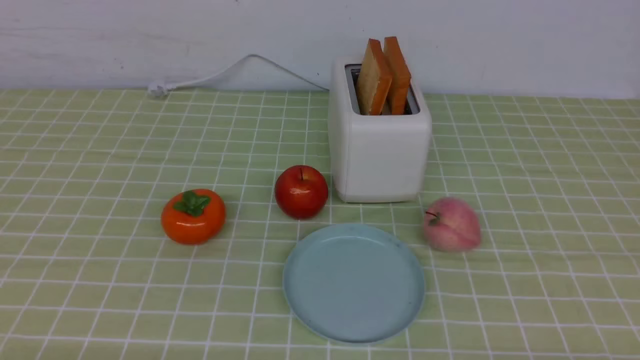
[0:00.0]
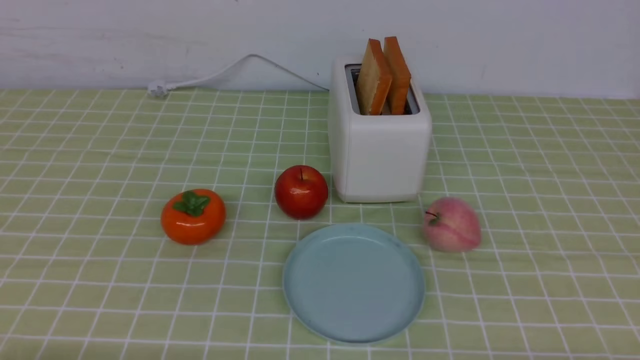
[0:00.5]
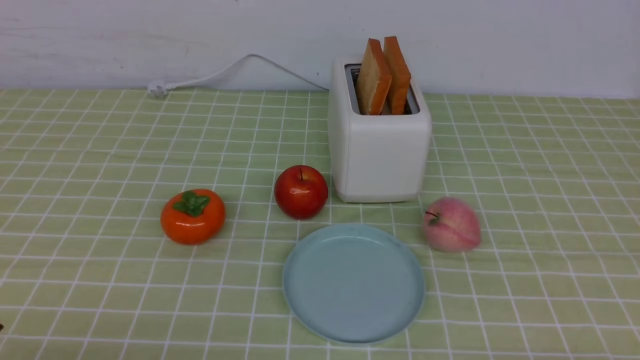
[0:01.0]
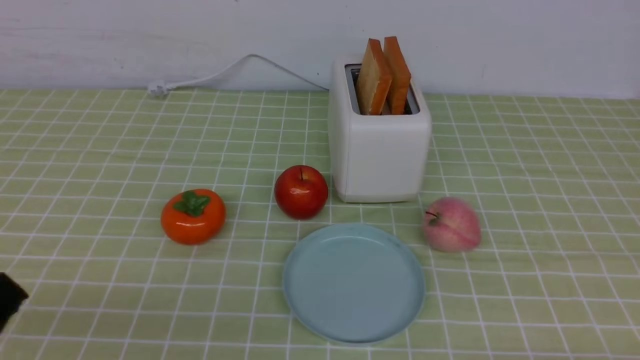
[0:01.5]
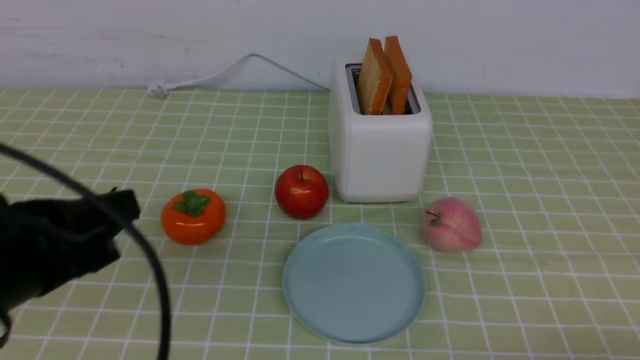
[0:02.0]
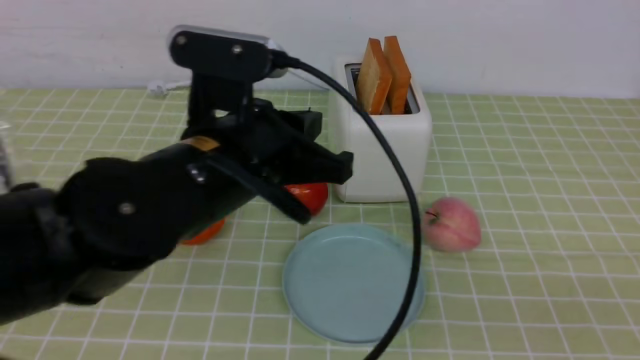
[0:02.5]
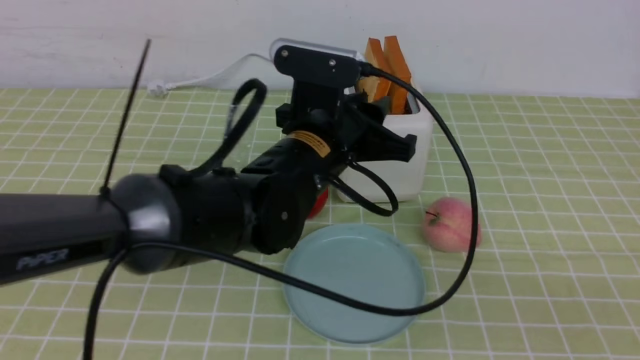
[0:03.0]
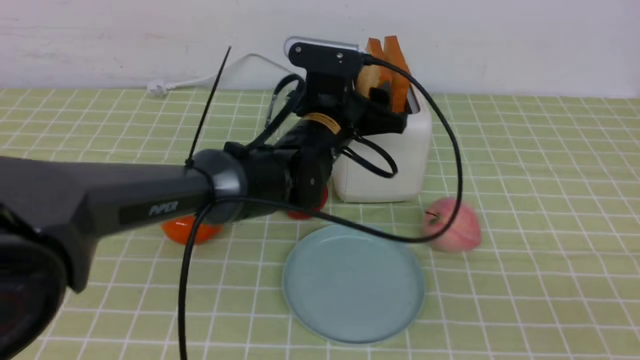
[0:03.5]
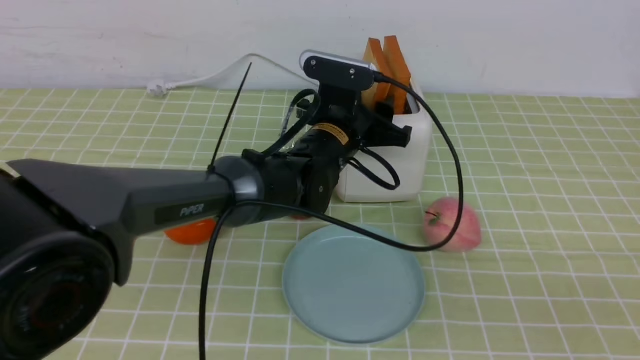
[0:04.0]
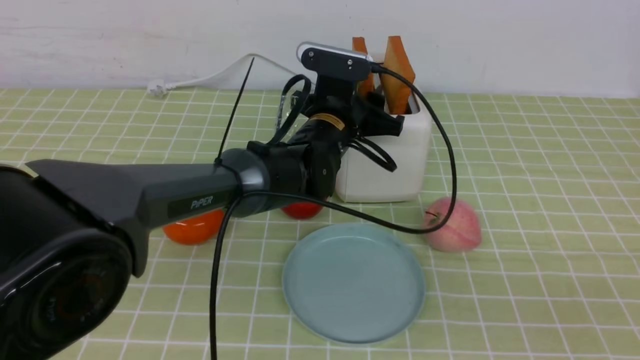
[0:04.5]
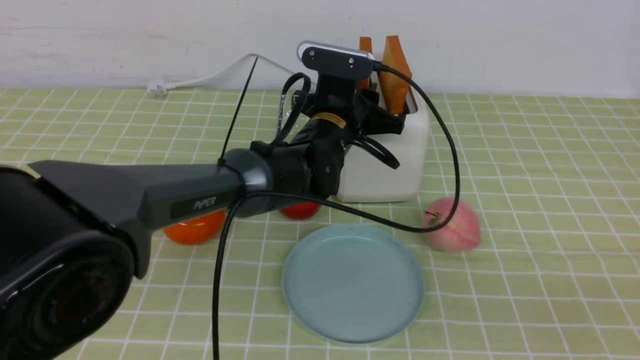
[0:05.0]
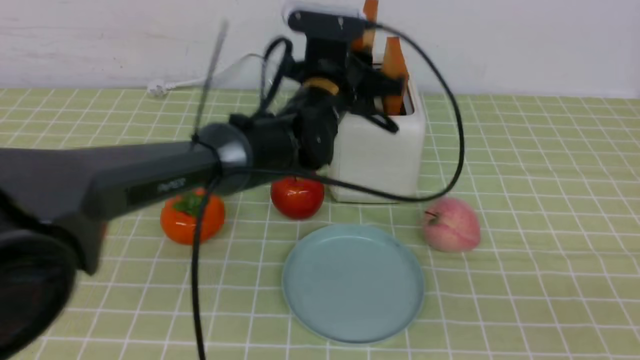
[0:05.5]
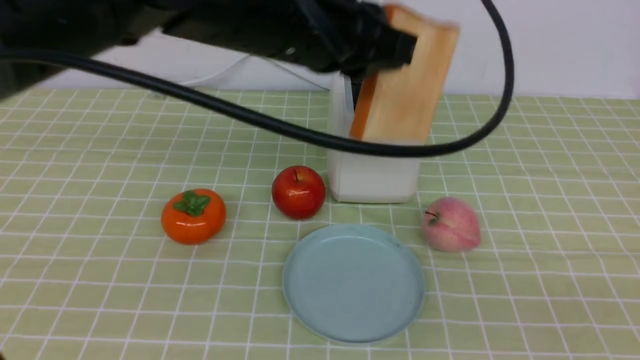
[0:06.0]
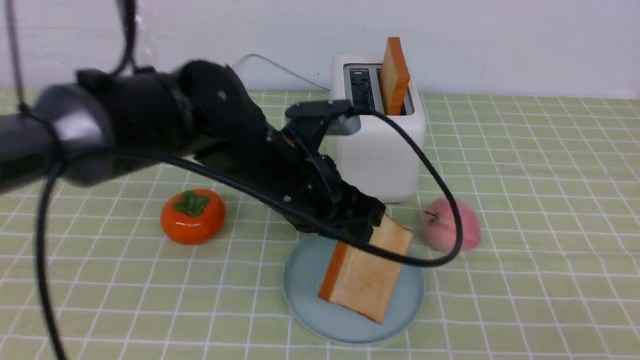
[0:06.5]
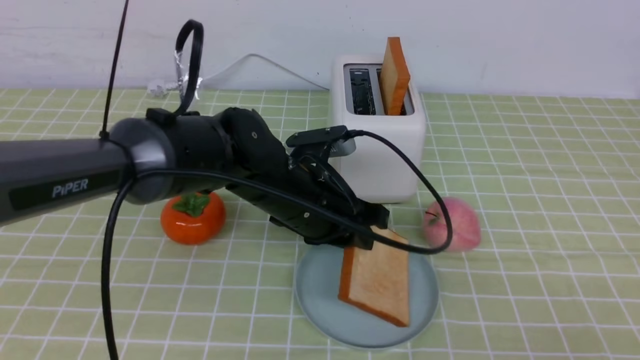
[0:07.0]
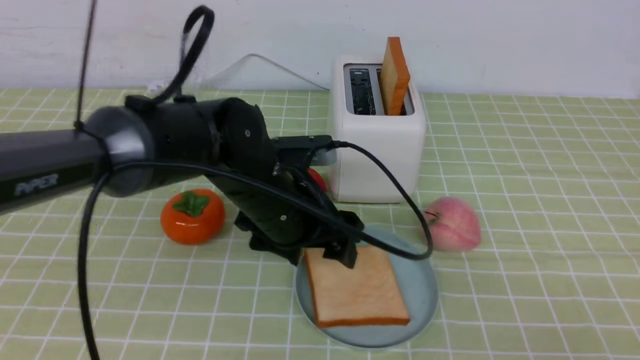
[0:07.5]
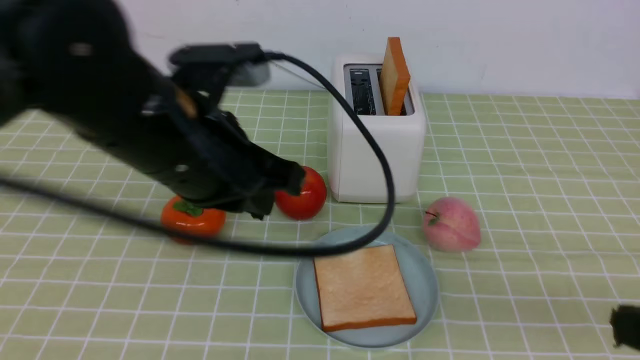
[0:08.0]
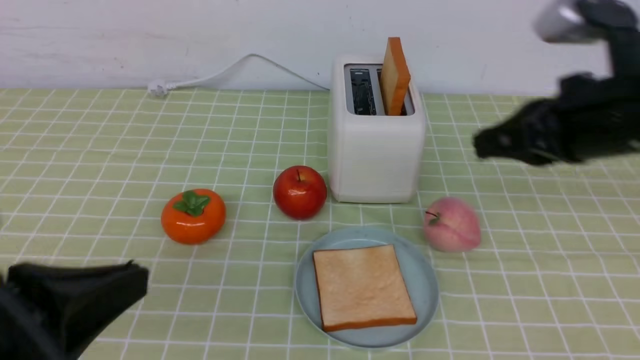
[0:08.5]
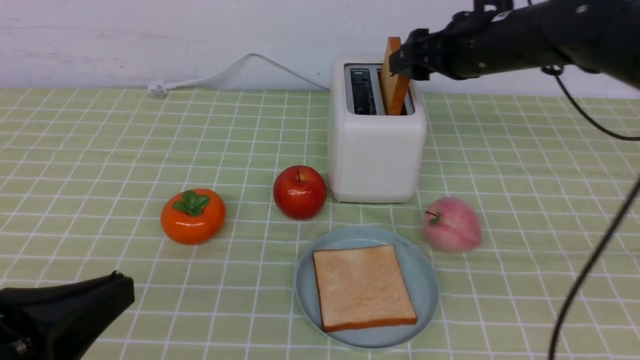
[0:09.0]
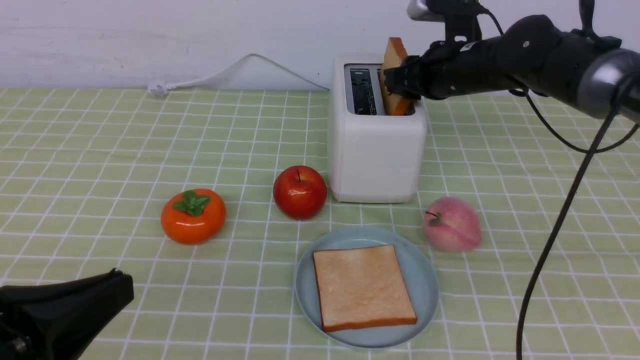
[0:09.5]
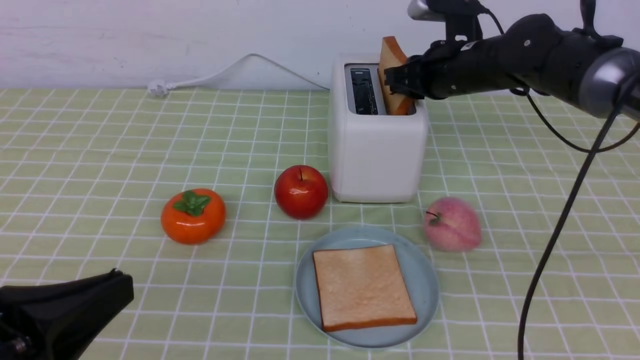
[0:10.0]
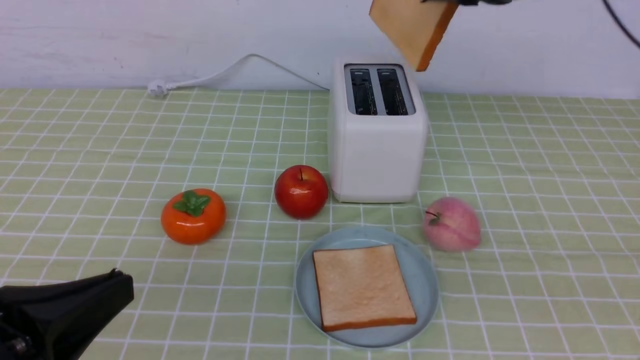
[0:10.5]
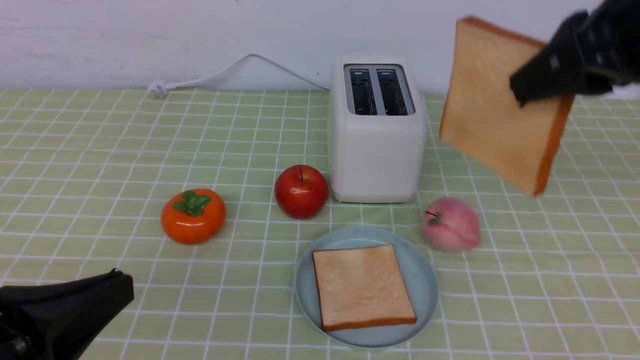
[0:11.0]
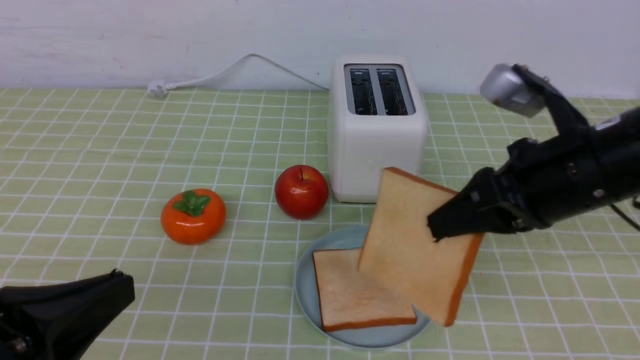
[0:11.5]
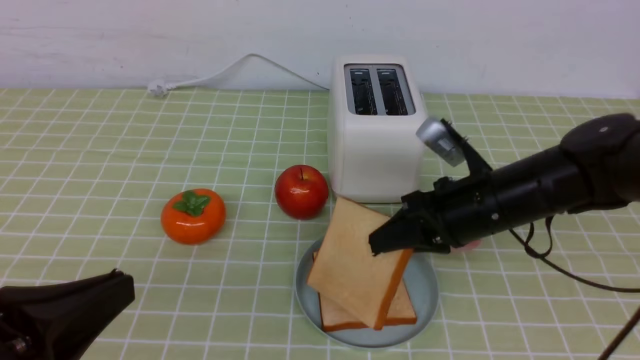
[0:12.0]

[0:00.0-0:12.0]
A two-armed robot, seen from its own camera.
Task of the whole recording: take toasted bread from bread machine on green coffee tablecloth place on plate.
Step, 0:00.0 to 0:05.5: use the left arm to take out a slice of bread.
Step, 0:06.0 to 0:07.5: use the left arm to put a slice of bread into the empty plate.
Step, 0:08.0 to 0:10.0: use the right arm to take out a slice of bread.
0:02.0 to 0:04.0: The right gripper travels upward by some 15 cm, and closes up, while the left gripper moves forward and to the right, about 35 cm, and opens its fingers.
0:04.0 to 0:06.0: The left gripper moves upward and backward, about 20 cm, and closes.
0:06.0 to 0:08.0: The left gripper moves backward, to the left and downward, approximately 10 cm, and opens and closes again.
0:08.0 to 0:10.0: The right gripper moves forward, some 40 cm, and opens and closes again, while the left gripper shifts about 20 cm backward and to the left, and closes its fingers.
0:10.0 to 0:12.0: The right gripper moves backward, about 15 cm.

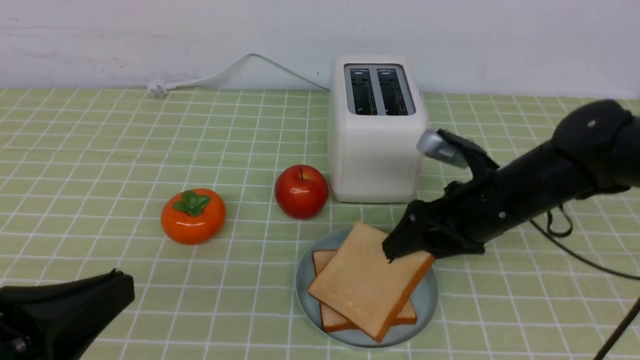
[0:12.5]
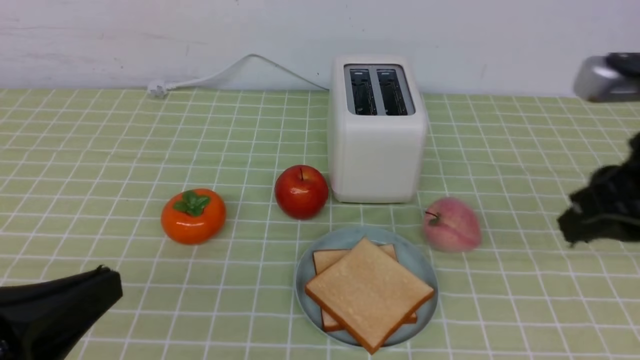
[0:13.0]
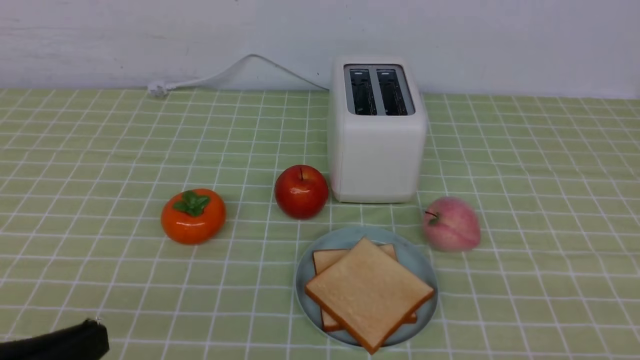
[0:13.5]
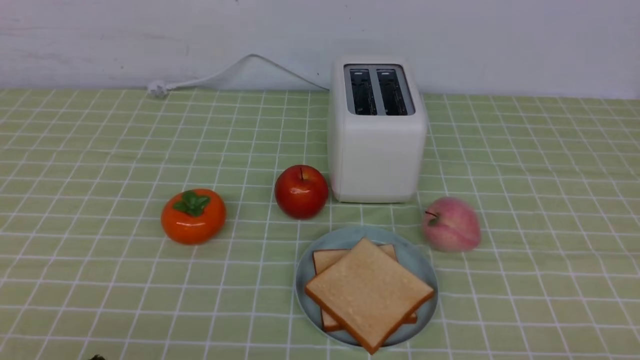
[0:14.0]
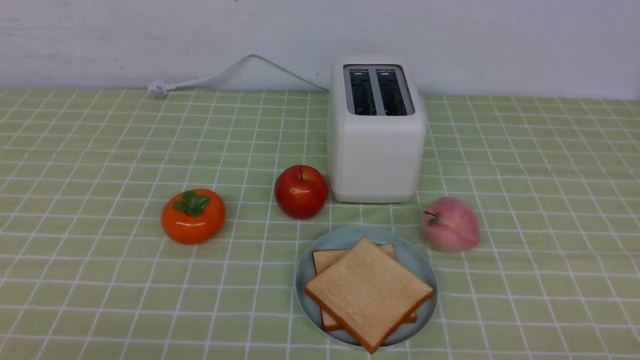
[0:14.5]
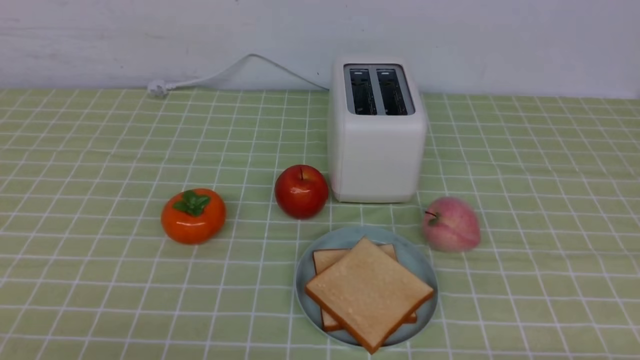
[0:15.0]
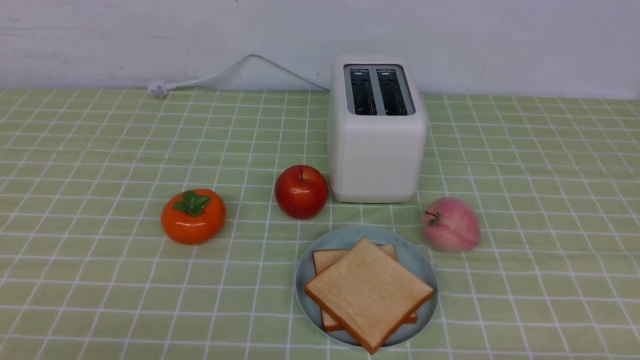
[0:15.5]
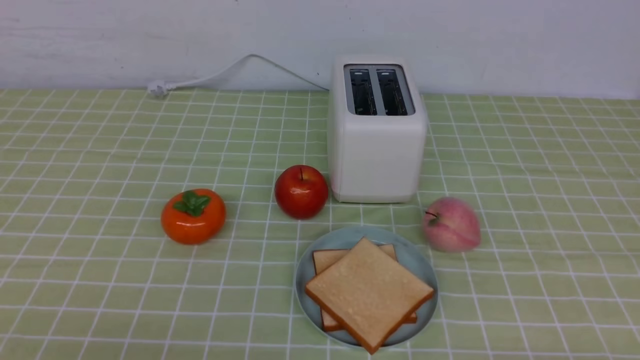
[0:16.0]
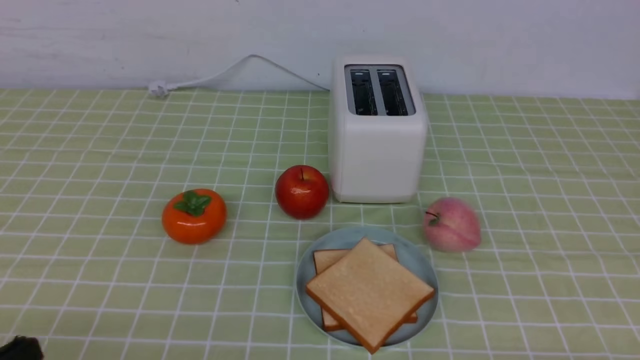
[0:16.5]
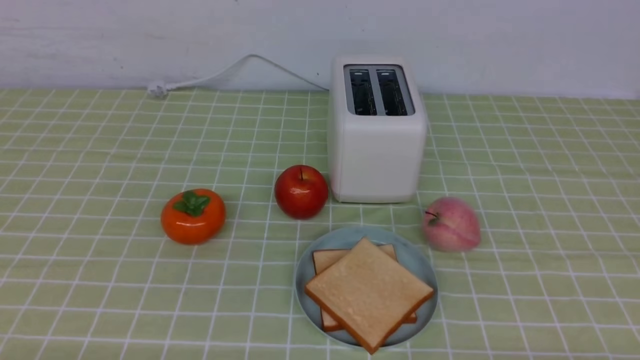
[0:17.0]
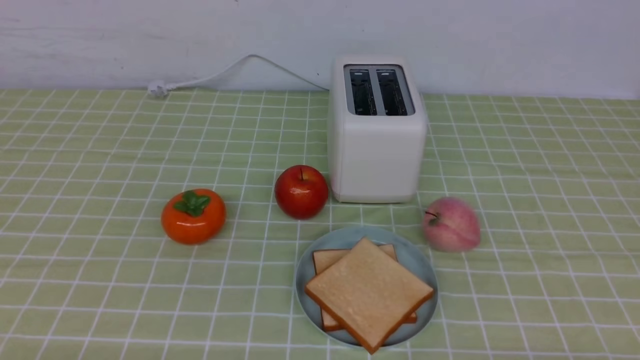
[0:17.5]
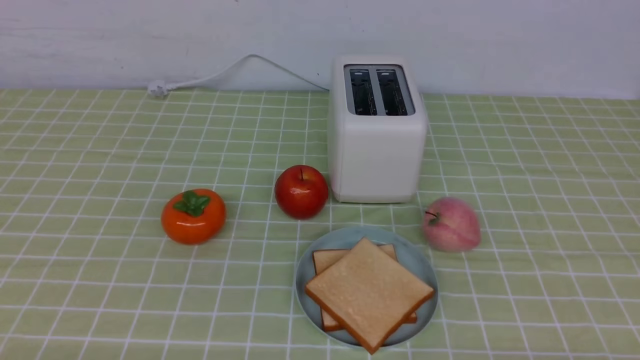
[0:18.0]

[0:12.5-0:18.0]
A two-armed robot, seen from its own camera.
Task of the whole recording: take toasted bread from bread machine on green coffee tablecloth place on plate.
0:12.5 to 0:14.5: The right gripper shifts approximately 30 cm backward, and closes up.
